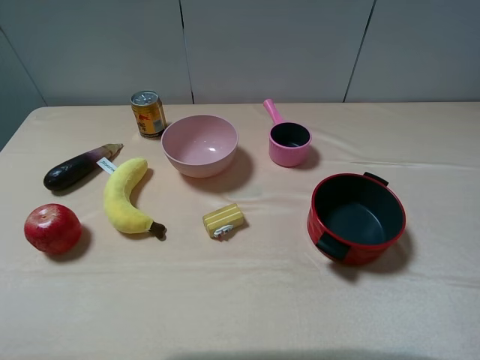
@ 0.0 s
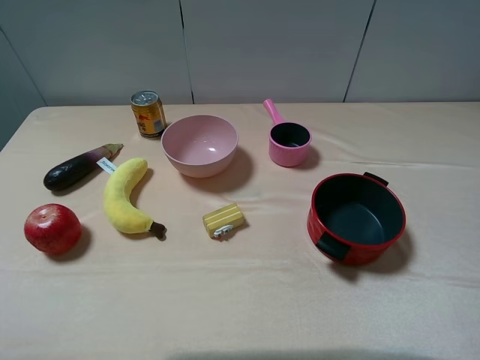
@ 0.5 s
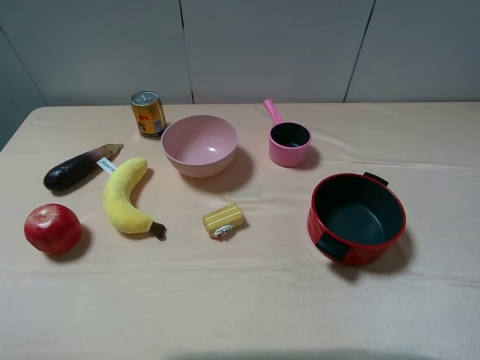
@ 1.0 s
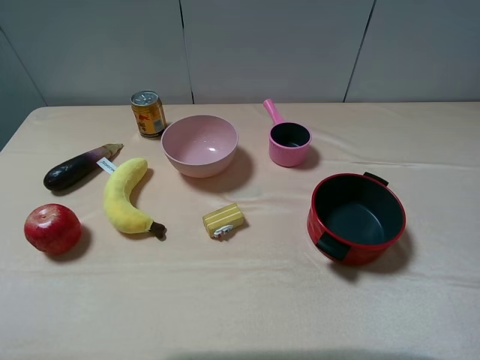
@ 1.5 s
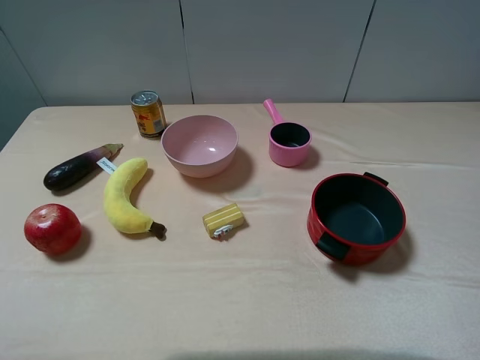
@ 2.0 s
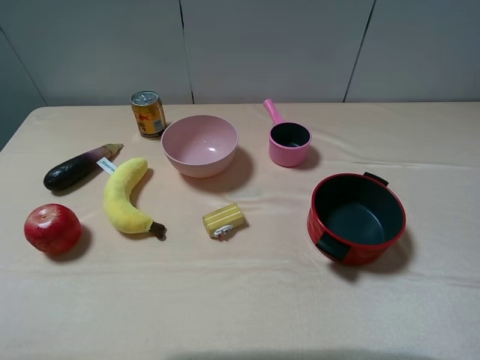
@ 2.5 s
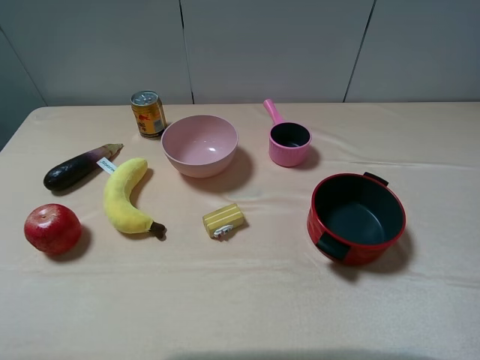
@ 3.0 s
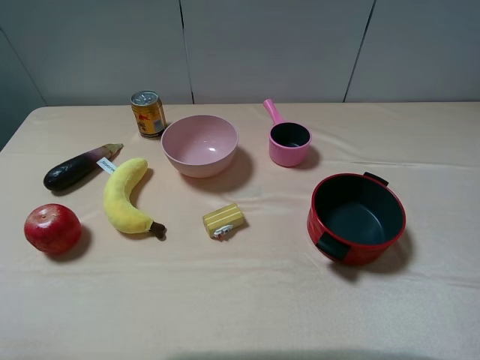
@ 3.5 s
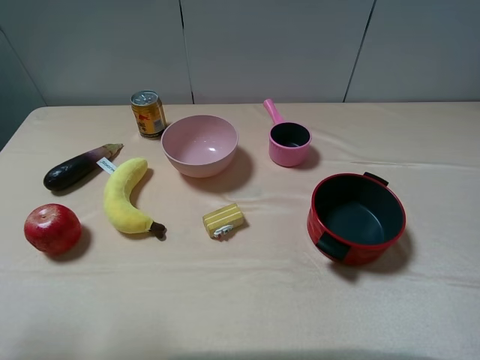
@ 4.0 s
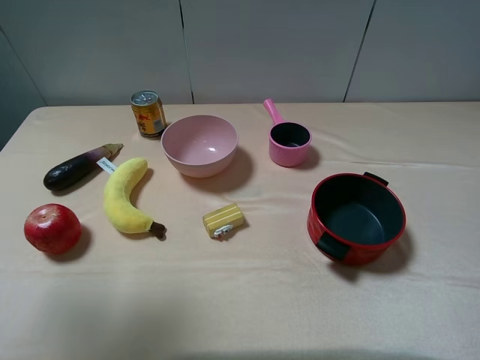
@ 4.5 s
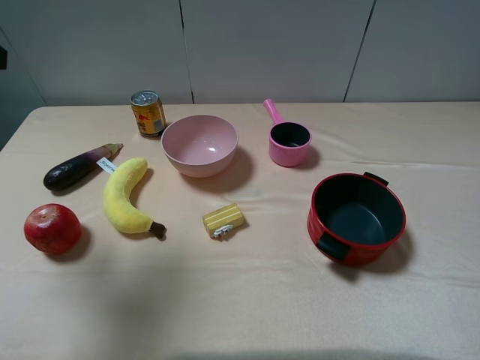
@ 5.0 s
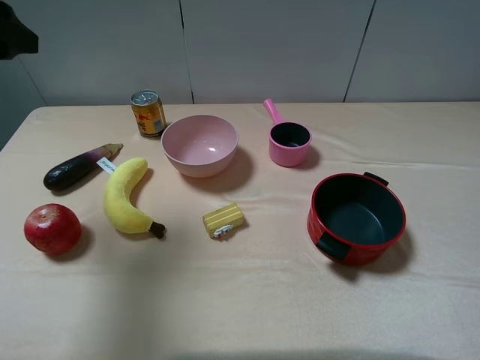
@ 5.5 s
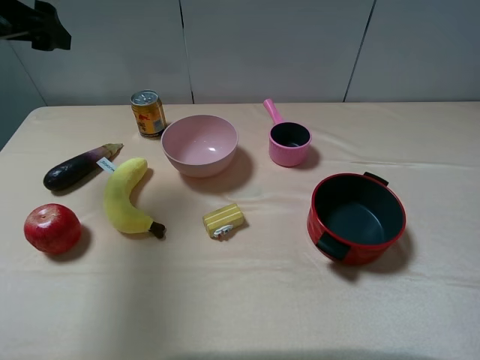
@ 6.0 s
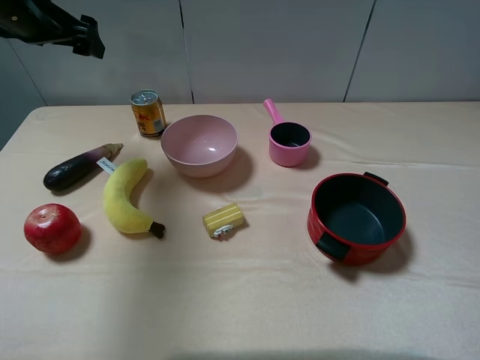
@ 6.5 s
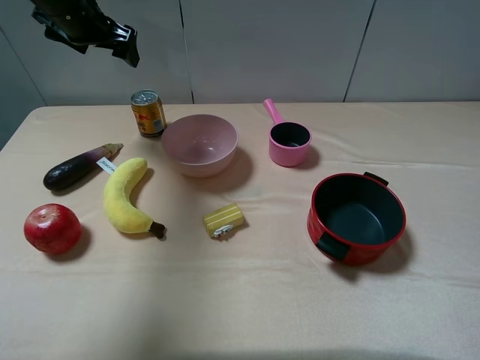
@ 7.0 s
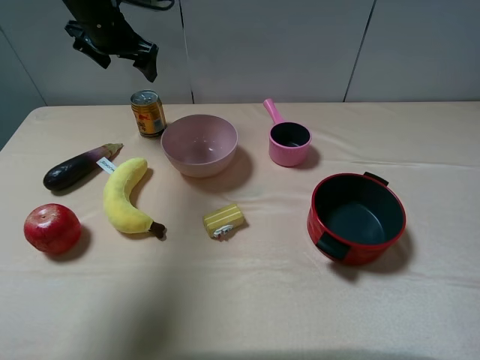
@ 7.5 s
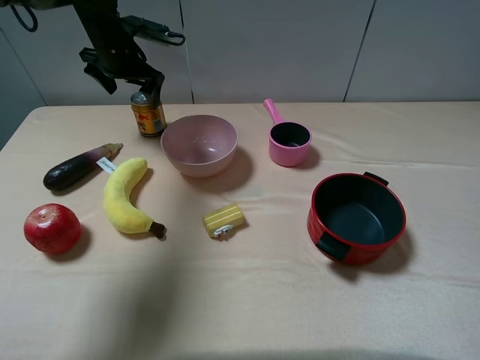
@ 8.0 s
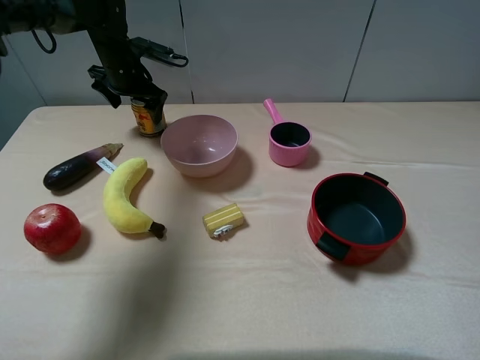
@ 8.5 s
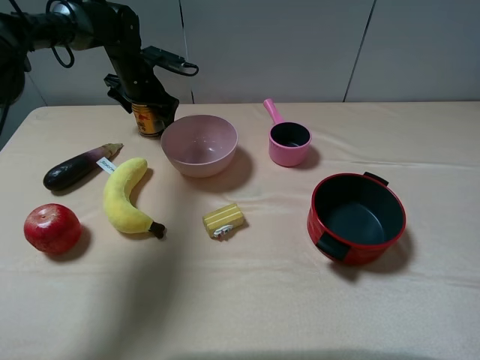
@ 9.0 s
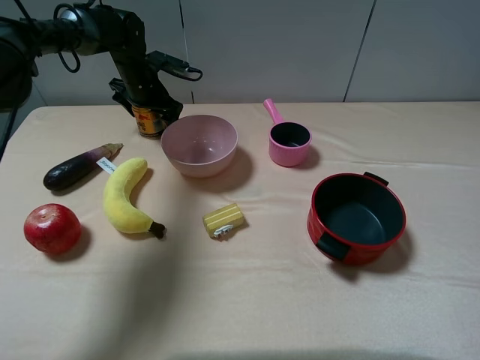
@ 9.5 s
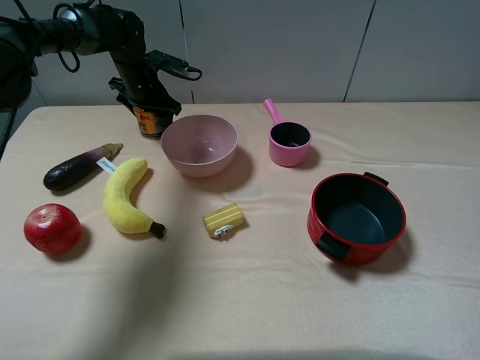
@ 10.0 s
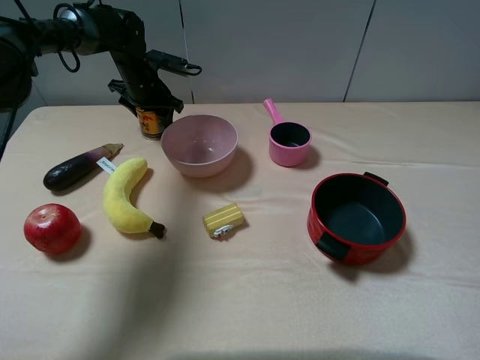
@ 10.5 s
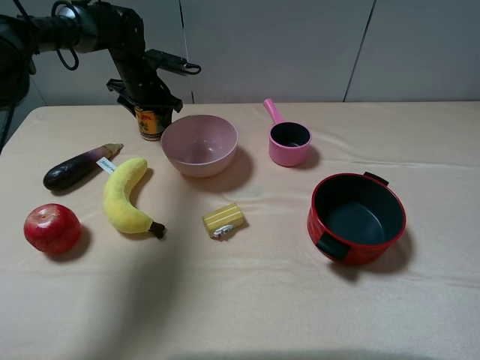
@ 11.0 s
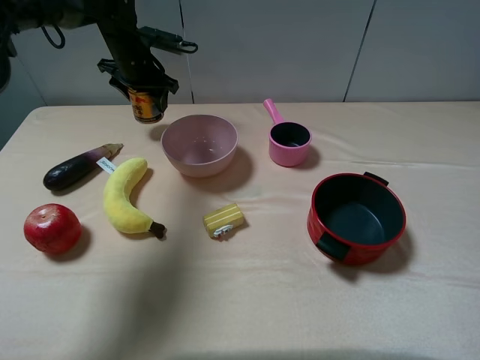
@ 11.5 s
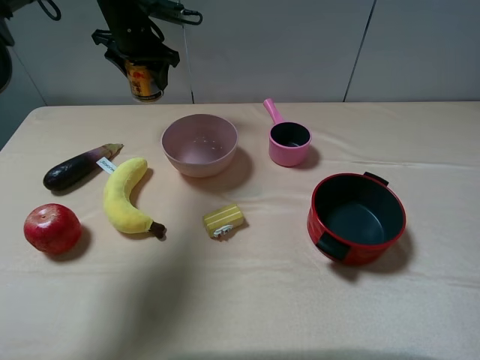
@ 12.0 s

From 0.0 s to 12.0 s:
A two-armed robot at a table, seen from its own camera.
Task of the whole recording: pick up an item with a gripper and place it in a random container on the table.
Step, from 0.0 s to 10.0 s: Grasp the red bull with the left gripper.
From 0.0 s to 2.0 s: The two grippers keep their place.
From 2.0 s to 4.0 s: The left gripper is displaced forward and upward by some 10 cm.
From 4.0 s to 6.0 s: The left gripper moves forward, about 25 cm.
From 6.0 s to 8.0 s: The left gripper moves forward, downward and to the right, approximately 25 cm.
From 8.0 s to 10.0 s: The left gripper shifts some 5 cm downward, and closes its fingers.
From 10.0 s to 12.0 s: The left gripper moves upward, some 10 cm.

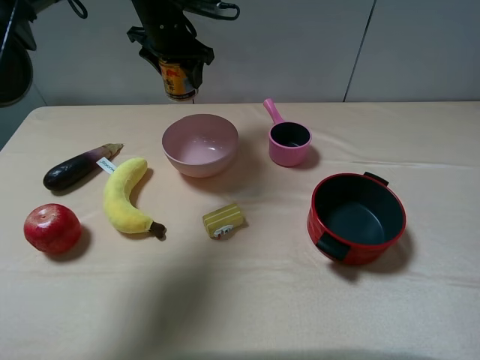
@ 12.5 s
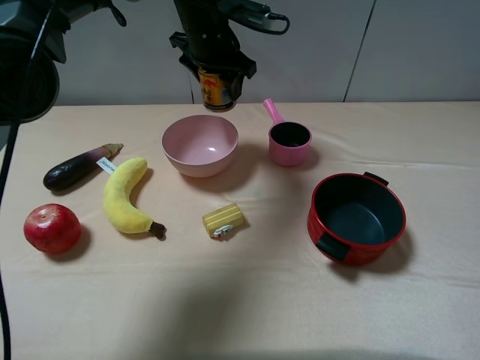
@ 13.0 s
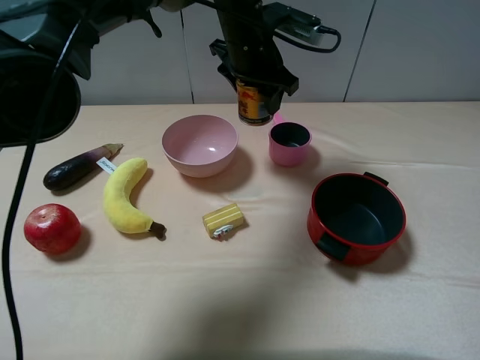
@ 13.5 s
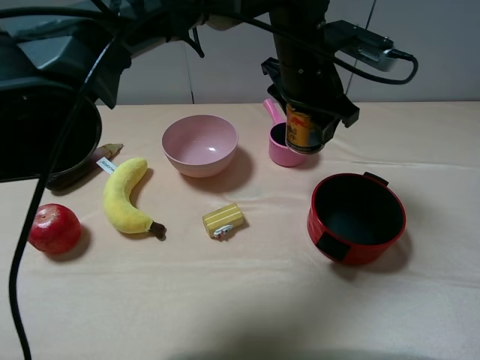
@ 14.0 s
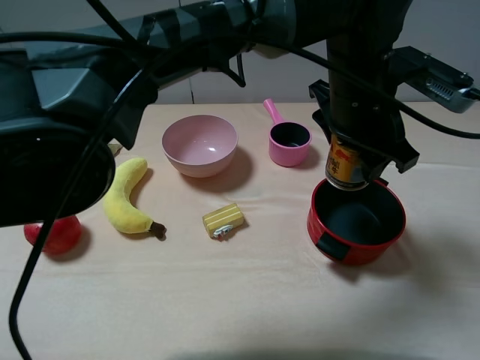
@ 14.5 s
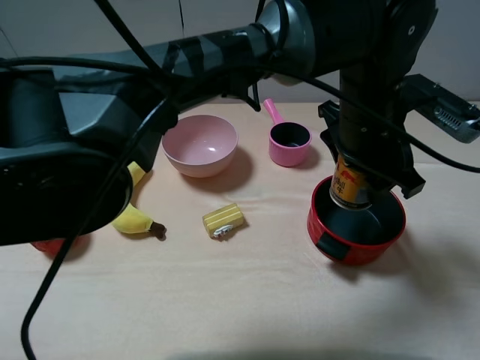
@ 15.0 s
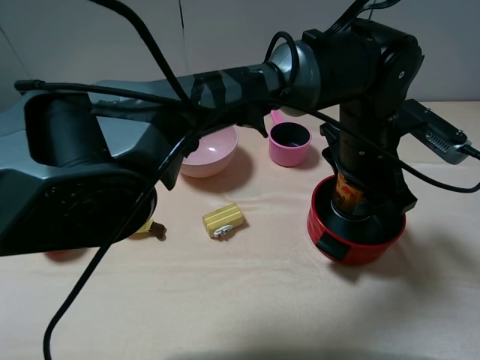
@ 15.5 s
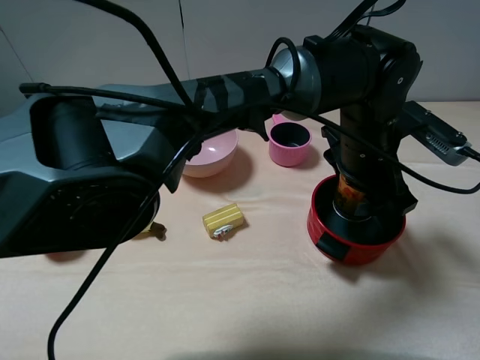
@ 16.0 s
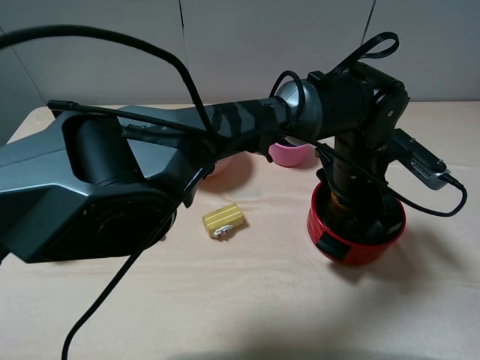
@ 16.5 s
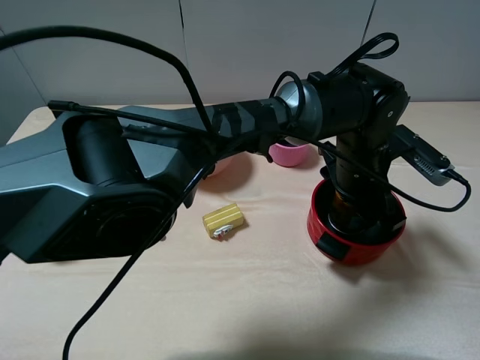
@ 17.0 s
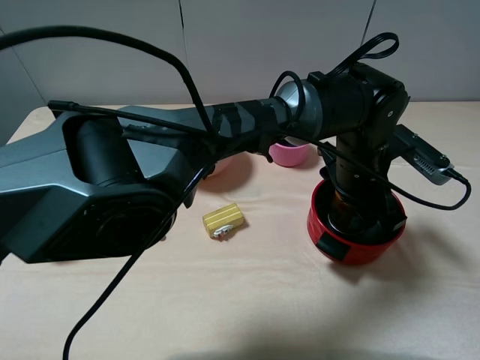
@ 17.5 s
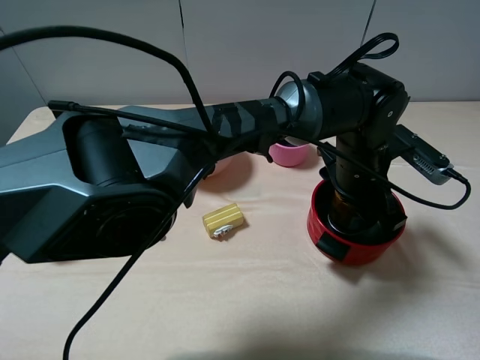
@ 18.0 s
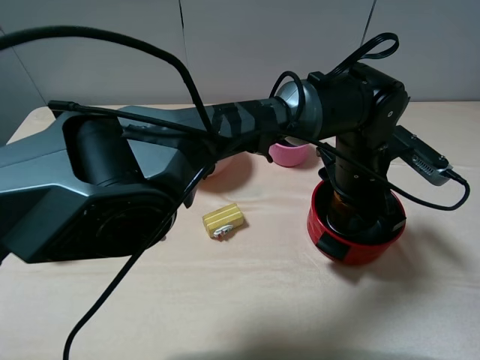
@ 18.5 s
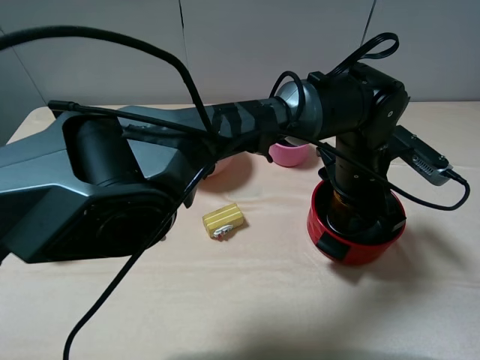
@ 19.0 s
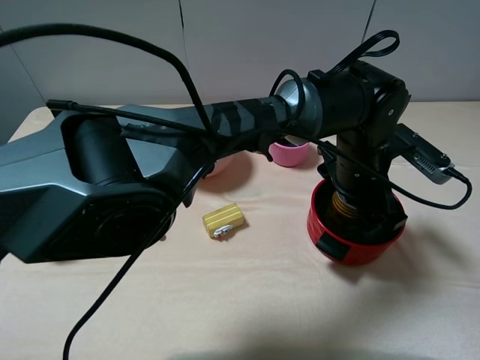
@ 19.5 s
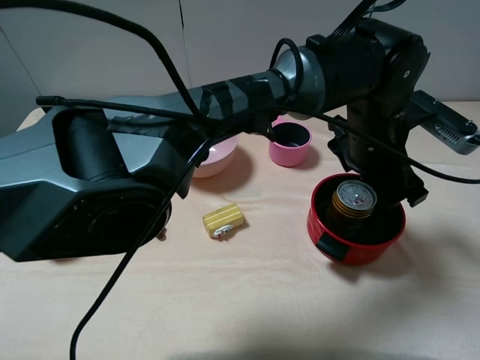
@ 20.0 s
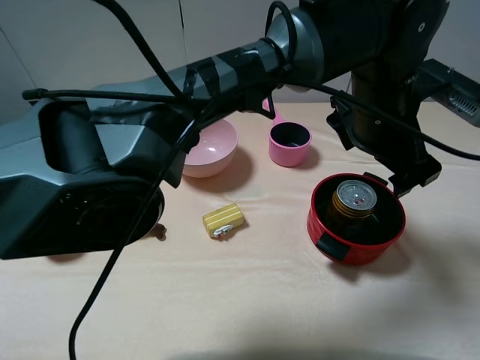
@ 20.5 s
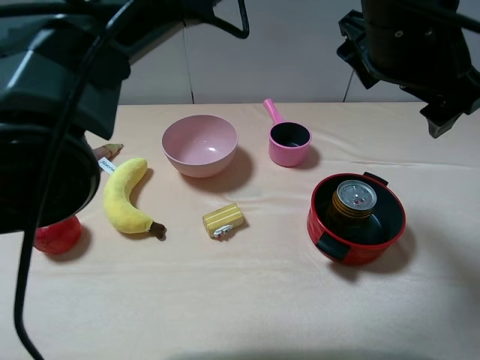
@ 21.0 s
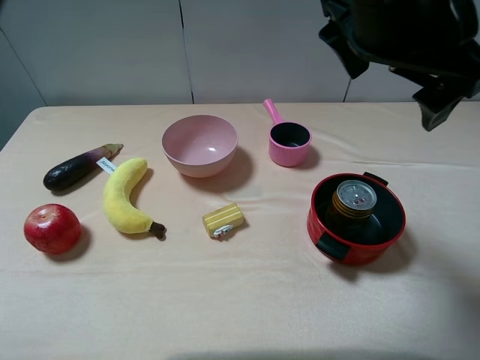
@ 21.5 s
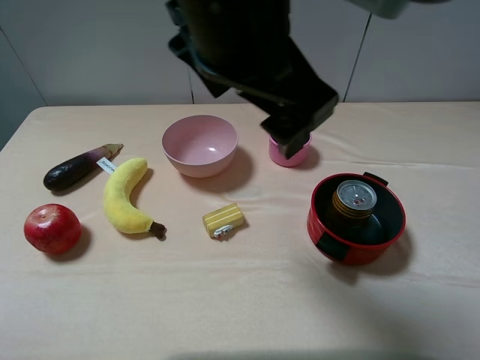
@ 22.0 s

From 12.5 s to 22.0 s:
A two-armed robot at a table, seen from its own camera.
Task of the whole recording: pick up an item with a gripper and place it in a random container on the table.
Step, from 12.5 s to 19.5 s: Place the red bull into the red pot with the left gripper.
From 12.5 s to 14.5 s: The left gripper travels to the right and backward by approximately 35 cm.
From 14.5 s to 16.5 s: The left gripper heads downward, covering approximately 10 cm.
From 16.5 s to 18.0 s: Neither gripper changes place.
From 18.0 s to 20.0 s: The left gripper opens its fingers.
From 20.0 s to 22.0 s: The left gripper heads to the left, upward and backward, covering some 25 cm, and opens up.

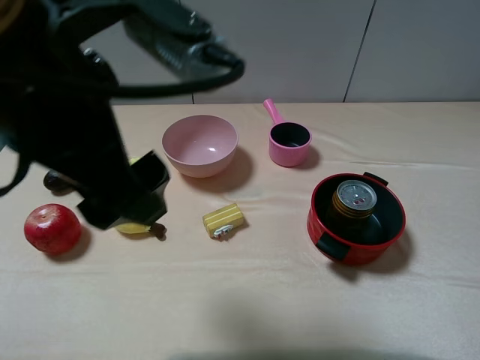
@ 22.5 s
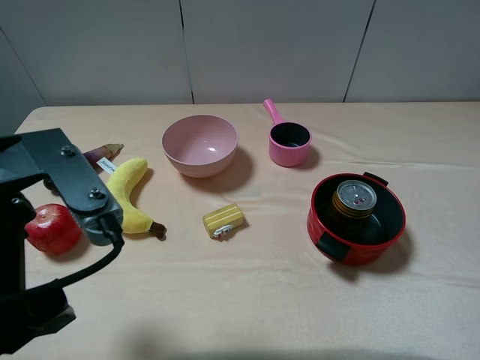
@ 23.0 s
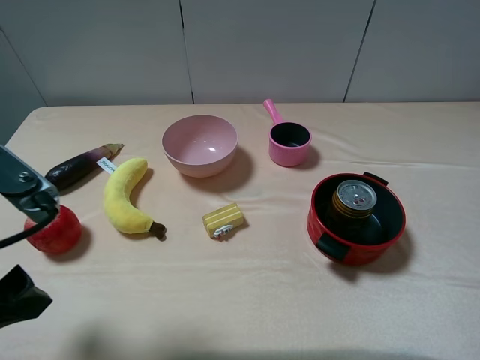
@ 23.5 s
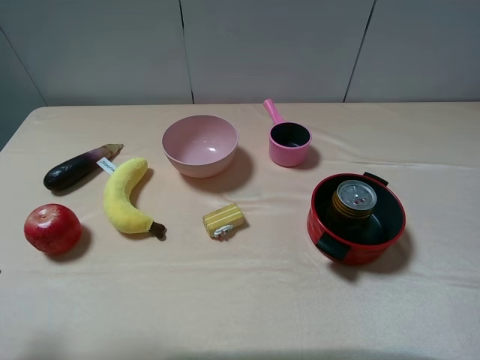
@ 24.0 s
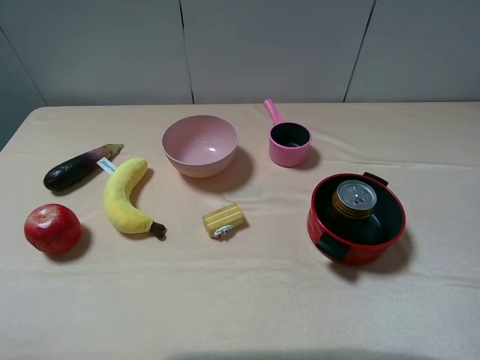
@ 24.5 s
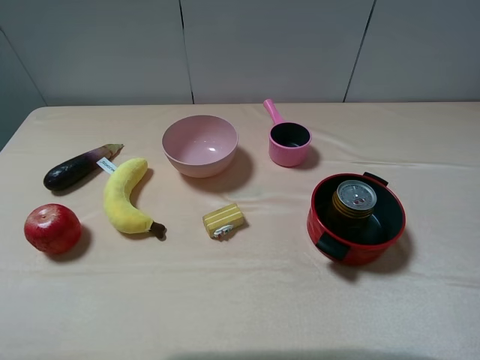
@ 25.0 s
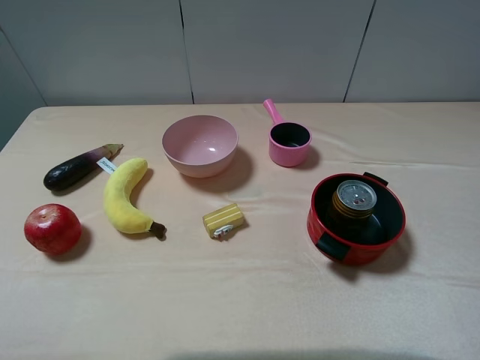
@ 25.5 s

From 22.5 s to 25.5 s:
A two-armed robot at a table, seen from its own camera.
Task of the whole recording: pick up an item with a gripper and place it in a random container on the table.
From 22.5 s to 24.0 s: The left gripper heads to the left, covering about 15 cm.
